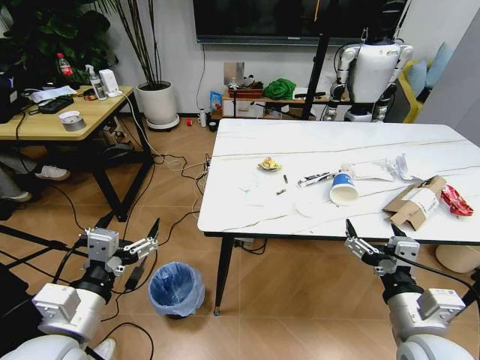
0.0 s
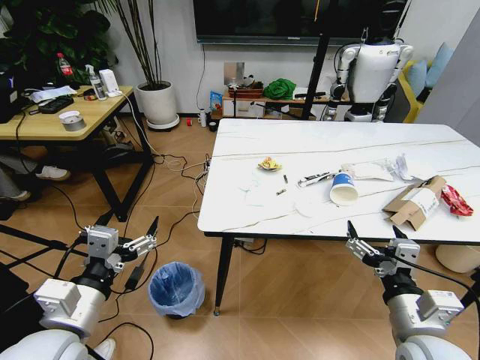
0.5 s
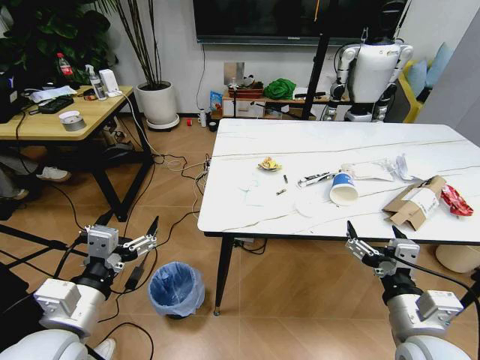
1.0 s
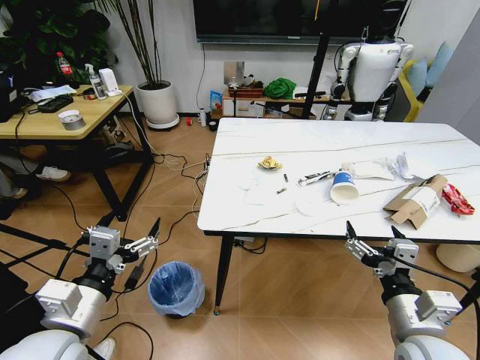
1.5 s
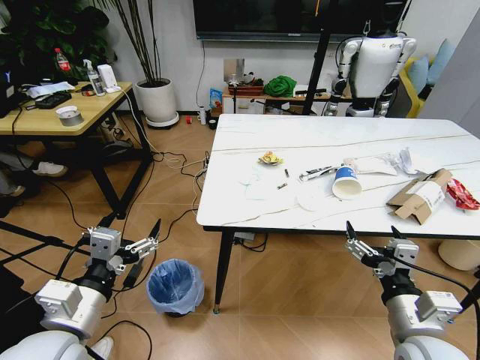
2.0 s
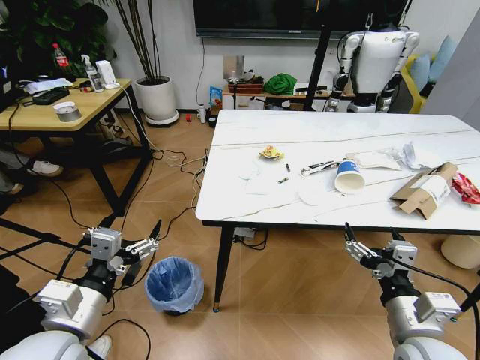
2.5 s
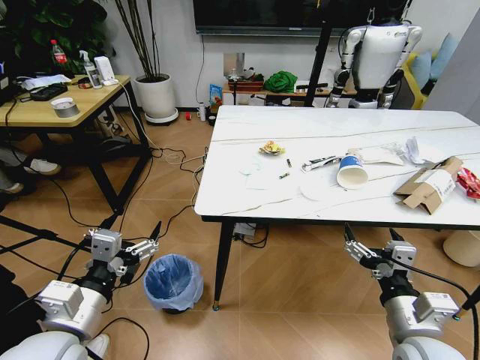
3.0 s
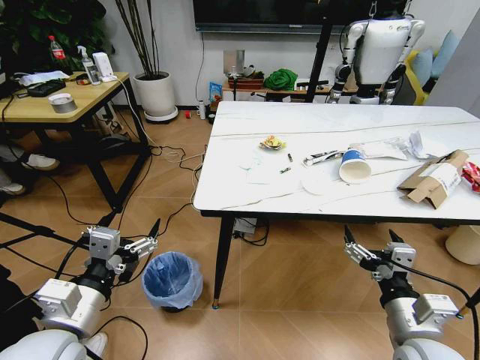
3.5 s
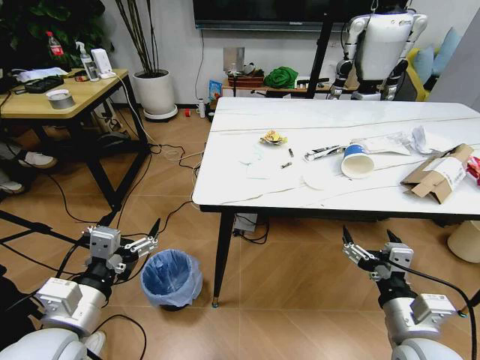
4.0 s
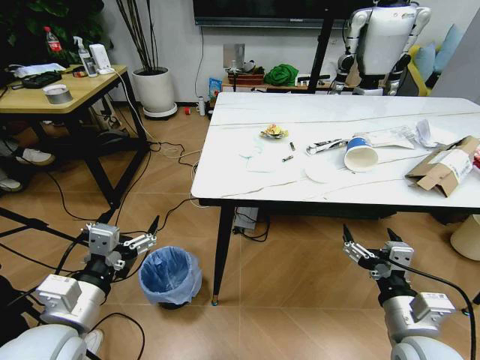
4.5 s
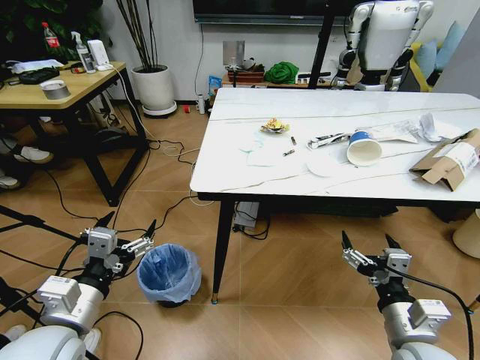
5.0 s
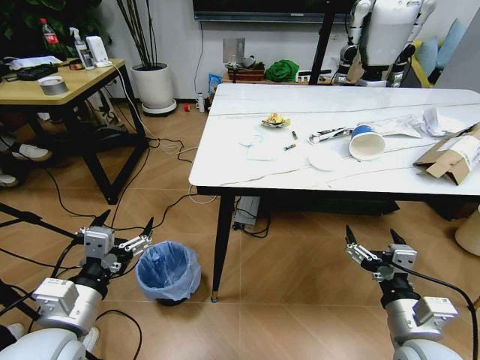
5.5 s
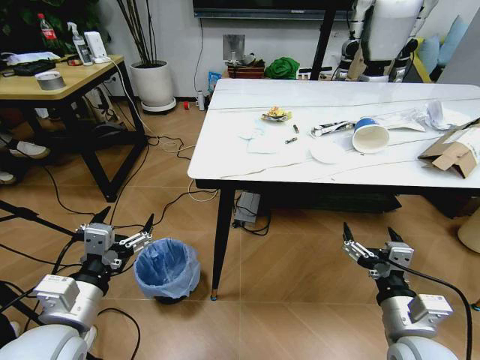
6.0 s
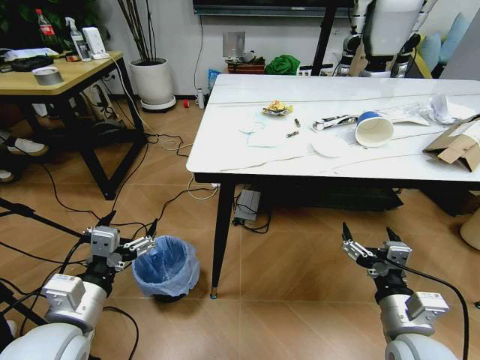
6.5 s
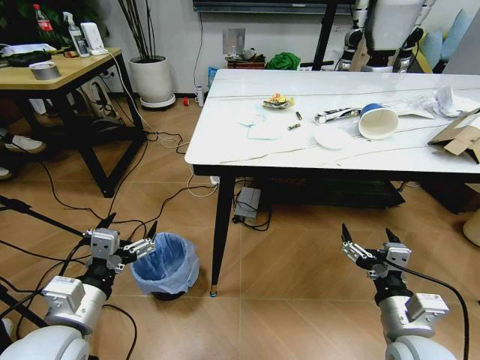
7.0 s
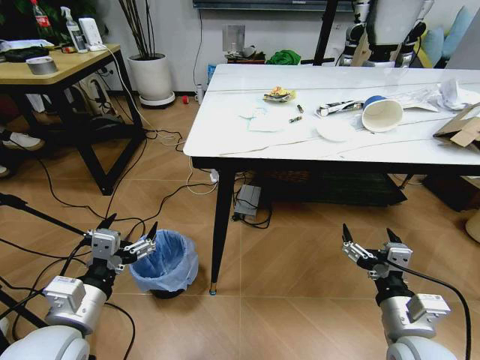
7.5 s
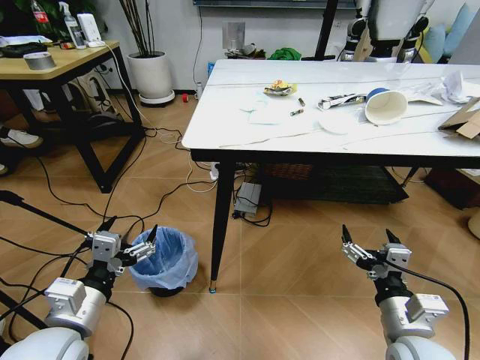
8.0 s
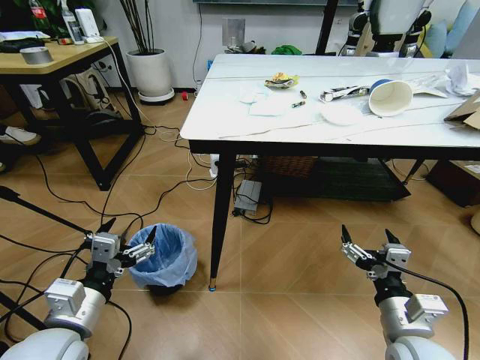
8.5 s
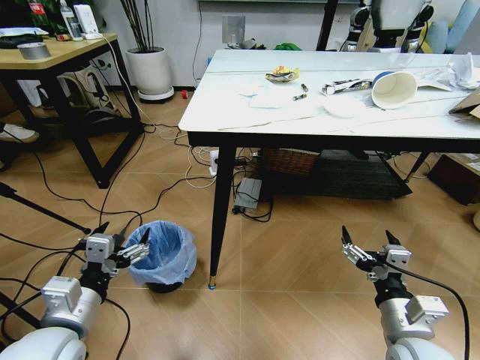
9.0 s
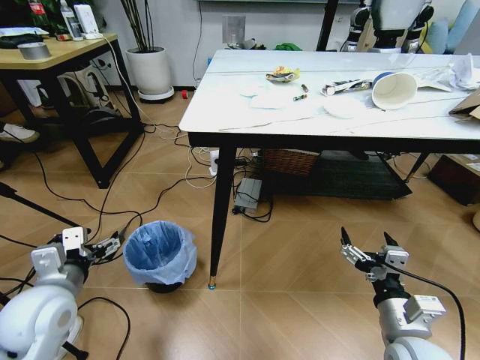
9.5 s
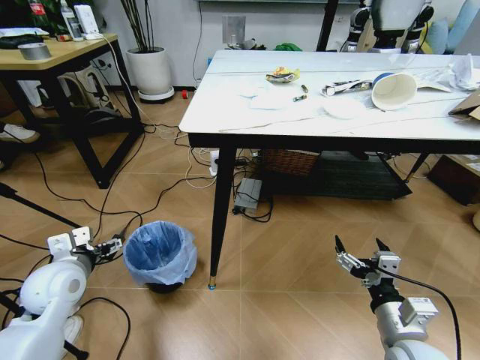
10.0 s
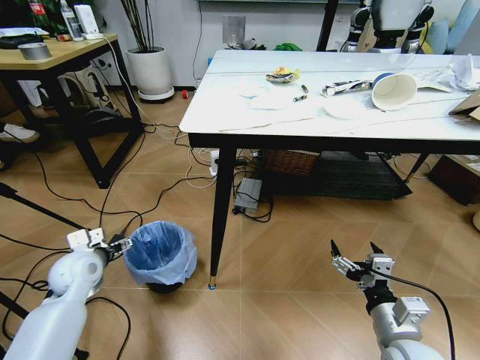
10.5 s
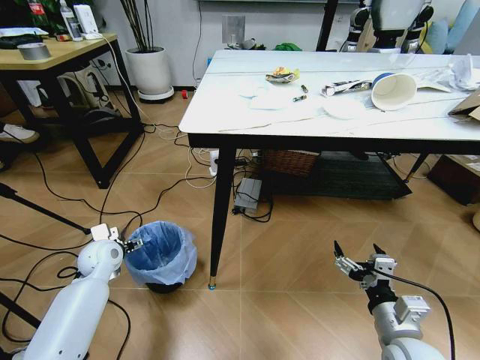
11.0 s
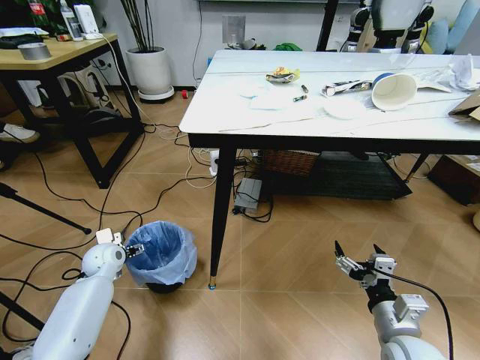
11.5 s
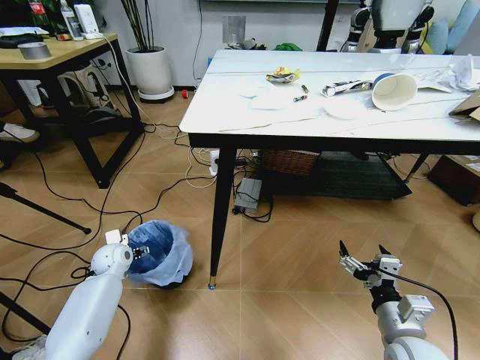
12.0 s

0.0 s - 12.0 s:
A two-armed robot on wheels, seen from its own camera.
Task of the whole recording: Pick up the trash bin and place the trash from the table into it.
8.0 s - 10.0 s: The left gripper travels forward and to the left by some 15 cm.
10.0 s - 12.0 s: The left gripper goes some 20 cm downward and forward.

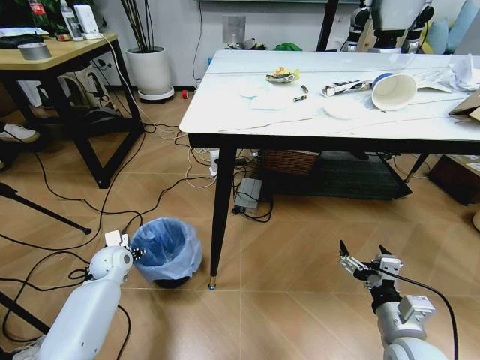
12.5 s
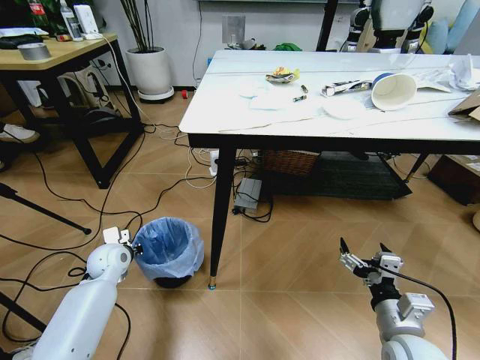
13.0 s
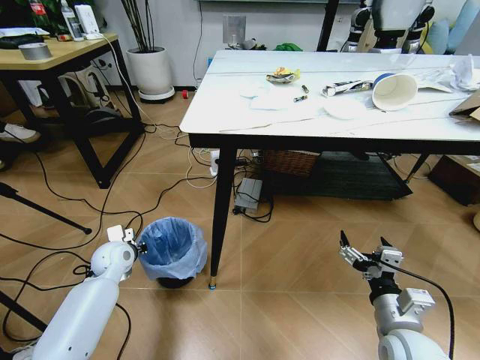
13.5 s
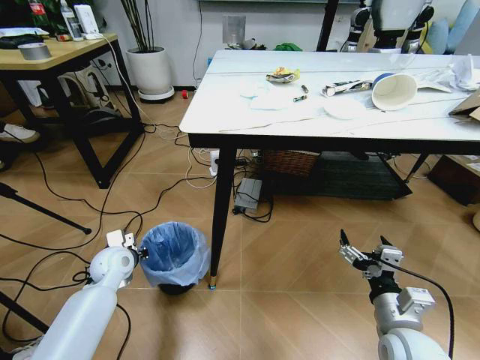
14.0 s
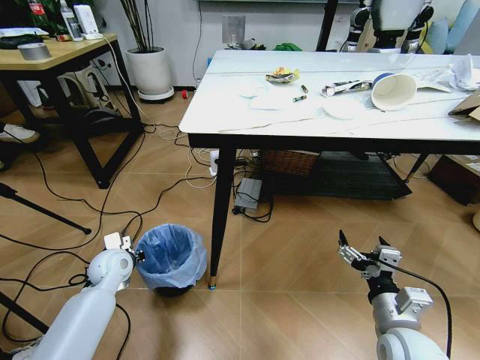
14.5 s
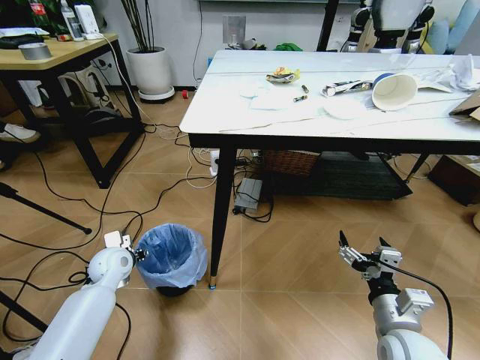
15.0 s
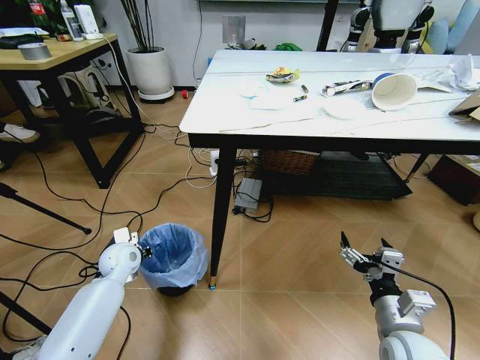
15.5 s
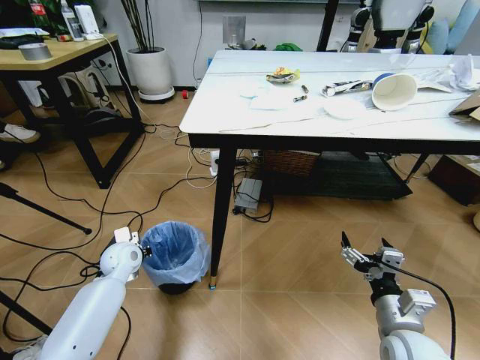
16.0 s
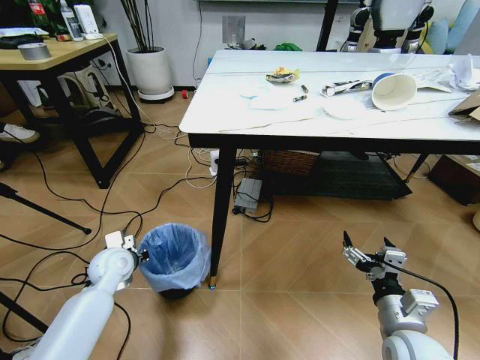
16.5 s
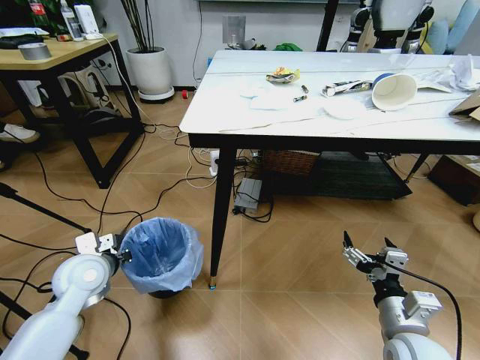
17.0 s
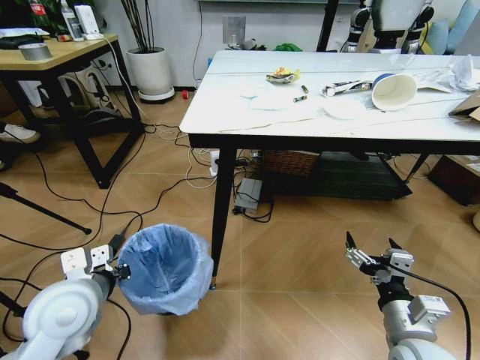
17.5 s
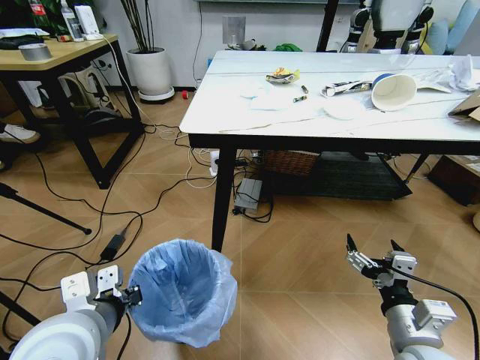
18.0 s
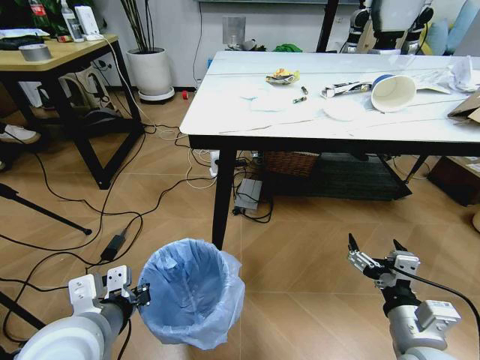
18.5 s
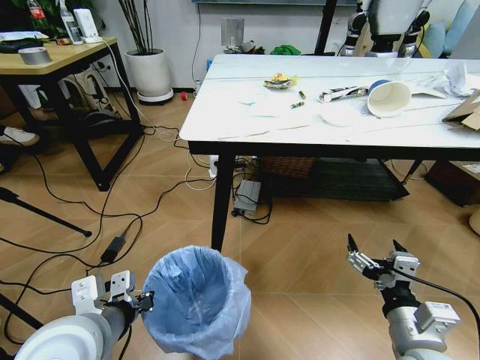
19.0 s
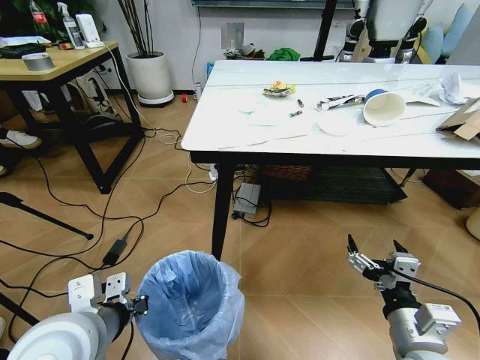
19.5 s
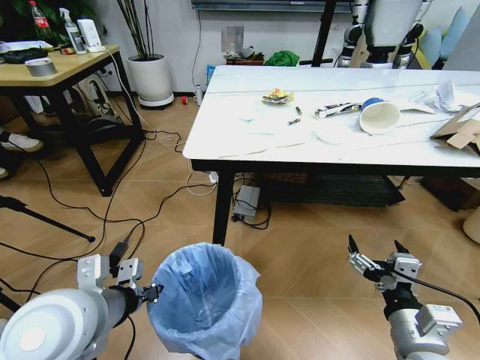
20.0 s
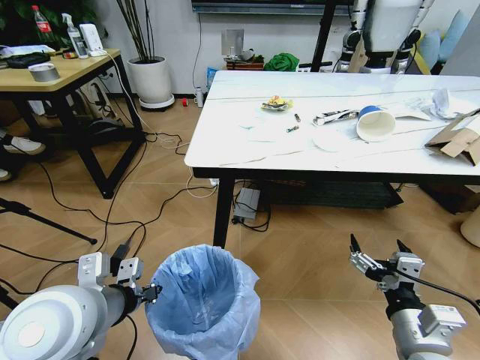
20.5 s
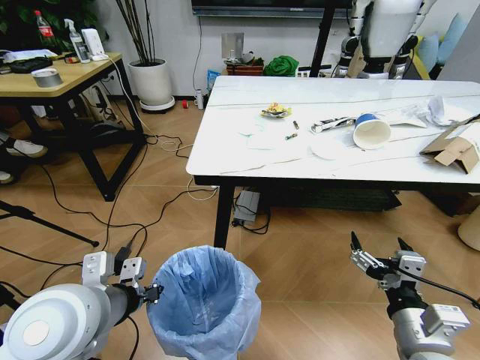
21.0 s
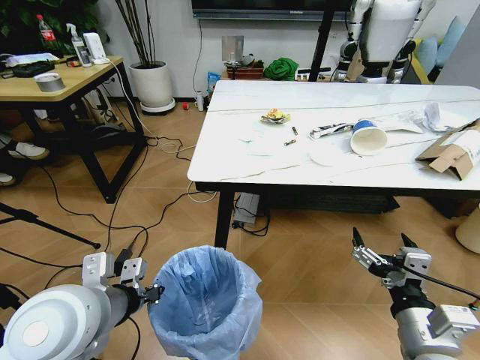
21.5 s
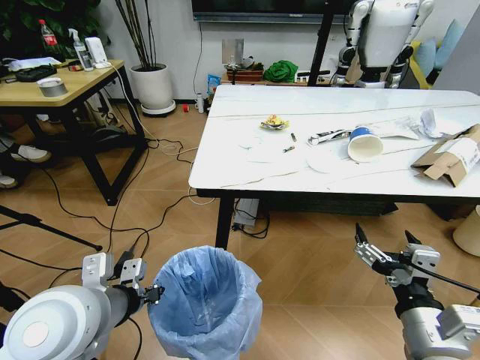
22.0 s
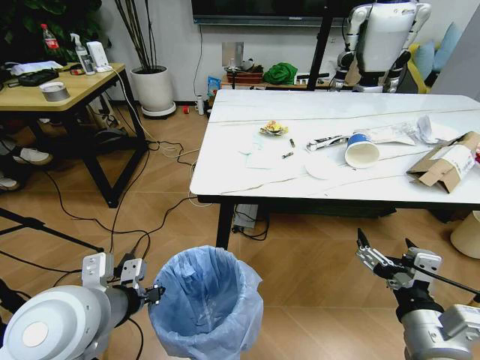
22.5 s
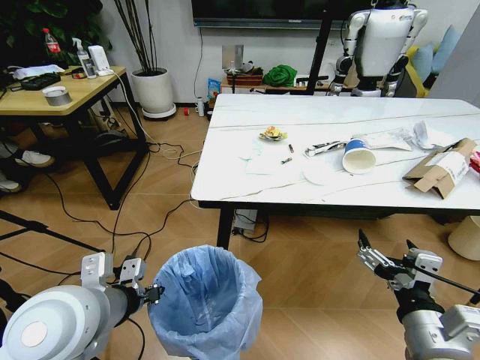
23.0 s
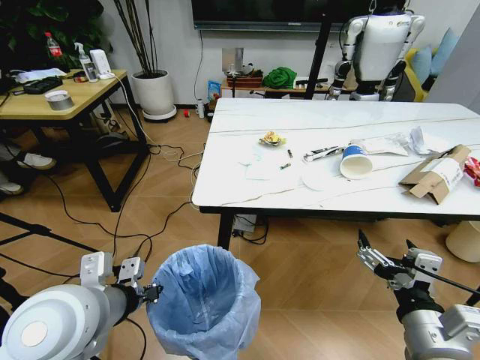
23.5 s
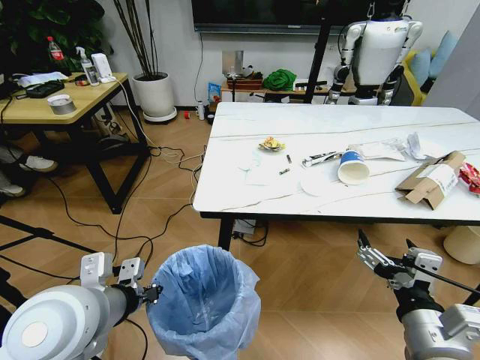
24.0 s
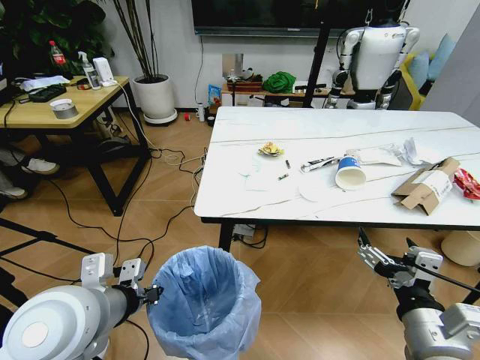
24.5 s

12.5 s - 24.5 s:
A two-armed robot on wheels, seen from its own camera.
Task of the whole recording: Pick up the trash bin and place the trash from the table into it.
12.5 s - 14.5 s: The left gripper changes place by about 5 cm, and closes up.
14.5 s - 16.5 s: The left gripper opens and closes again.
16.5 s - 18.5 s: The left gripper goes approximately 25 cm backward and upward; the right gripper moves approximately 5 cm.

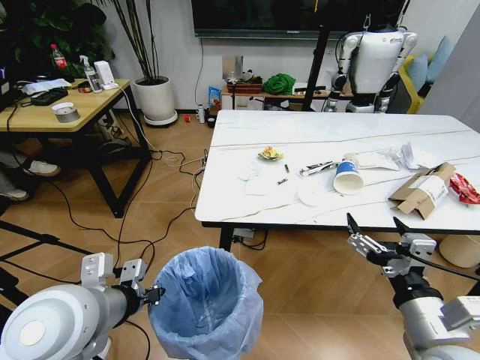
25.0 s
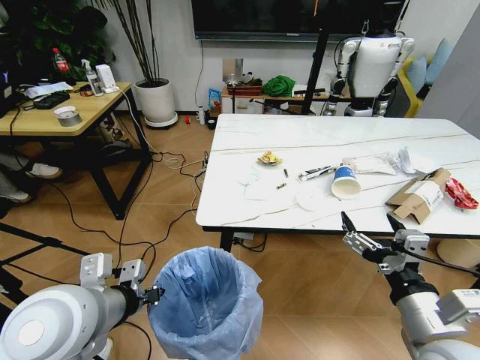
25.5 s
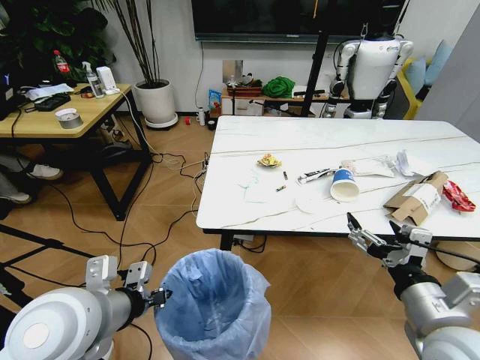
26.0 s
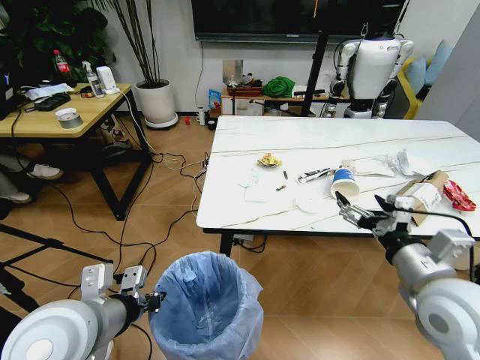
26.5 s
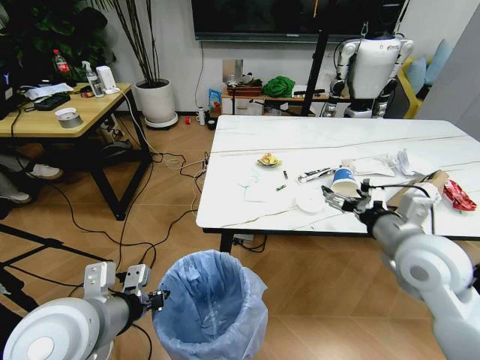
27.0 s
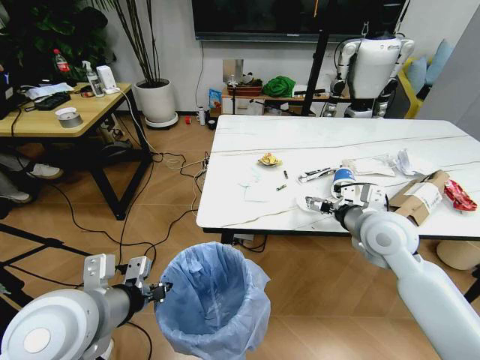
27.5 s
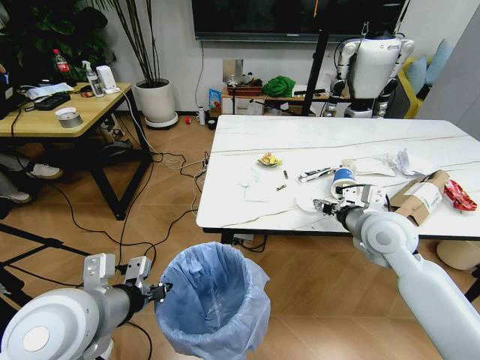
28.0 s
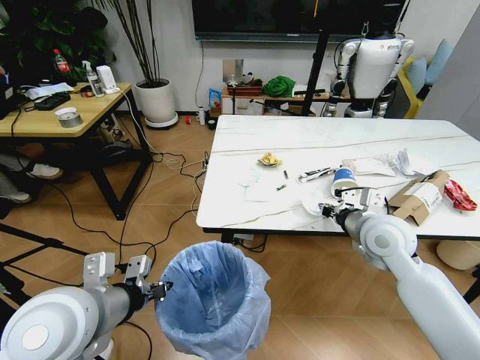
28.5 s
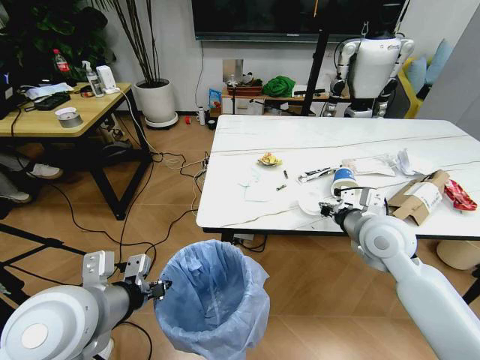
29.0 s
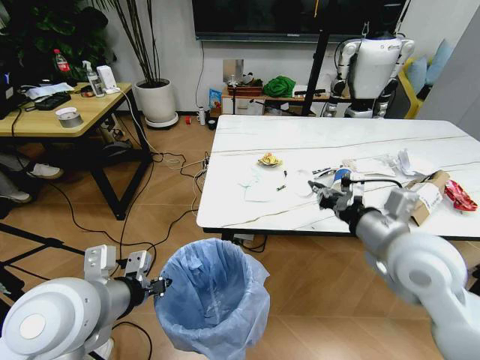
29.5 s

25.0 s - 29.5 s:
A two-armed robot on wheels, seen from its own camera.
Task of the whole recording: Pick up the trash bin and place the trash from the table into it.
25.0 s - 27.0 s: The right gripper travels forward by approximately 15 cm.
27.0 s - 29.5 s: The right gripper moves some 5 cm forward and comes back, and closes up.
